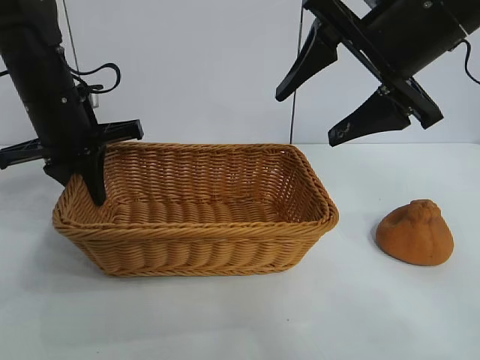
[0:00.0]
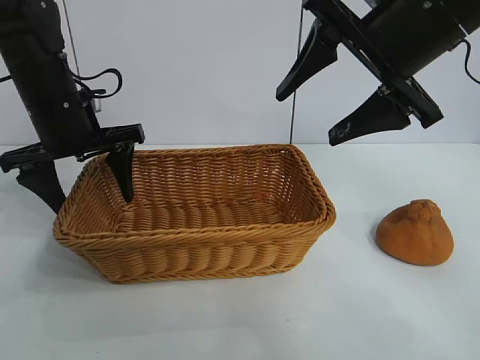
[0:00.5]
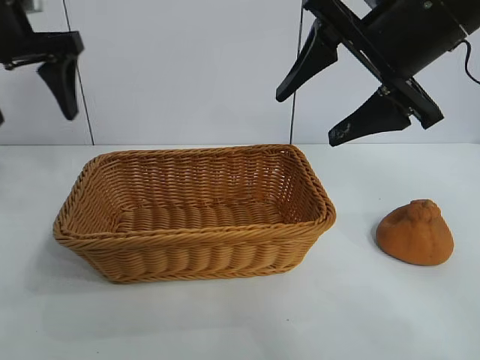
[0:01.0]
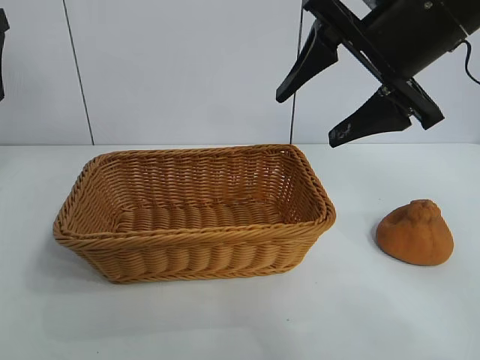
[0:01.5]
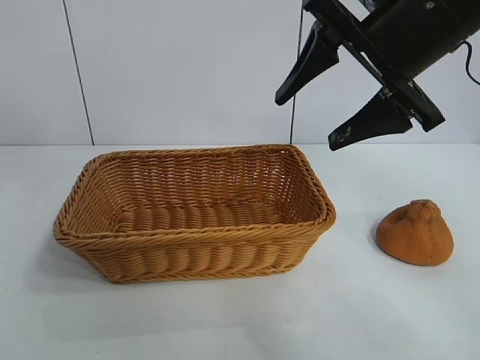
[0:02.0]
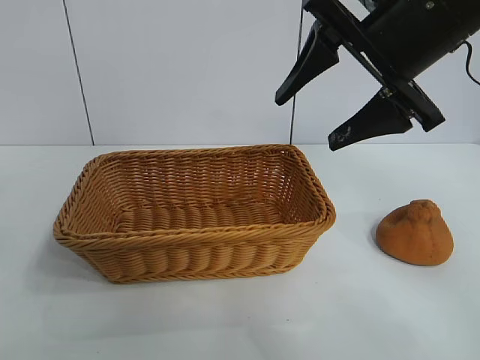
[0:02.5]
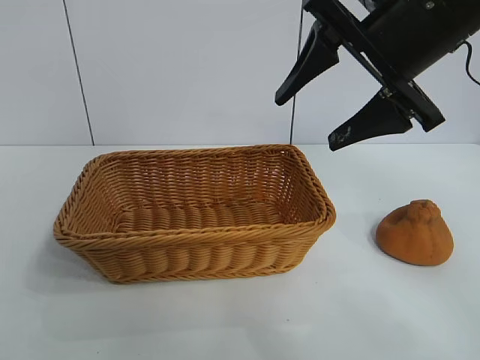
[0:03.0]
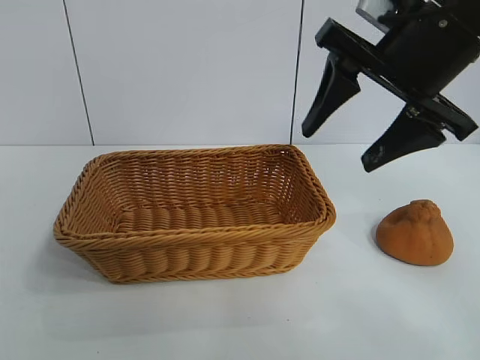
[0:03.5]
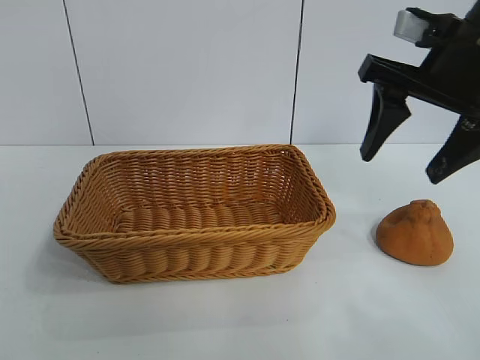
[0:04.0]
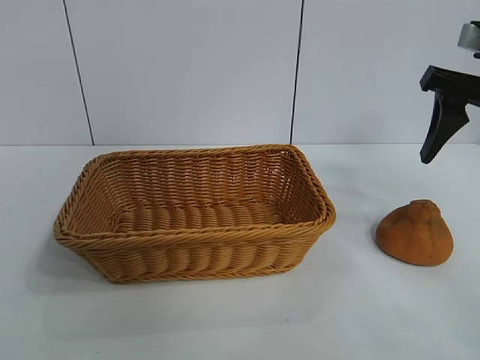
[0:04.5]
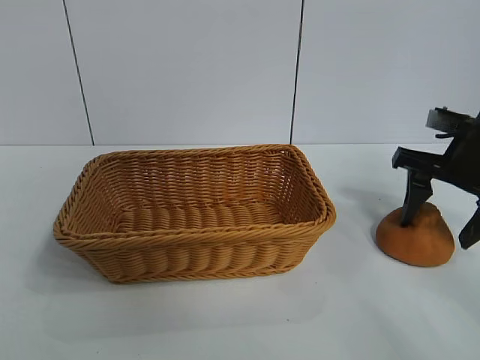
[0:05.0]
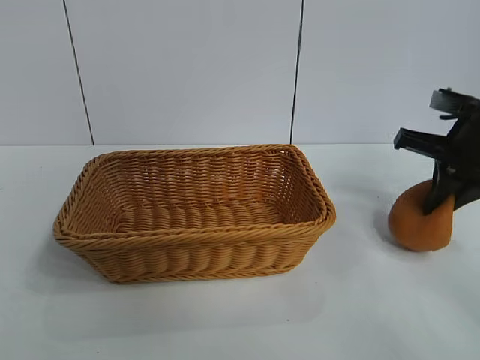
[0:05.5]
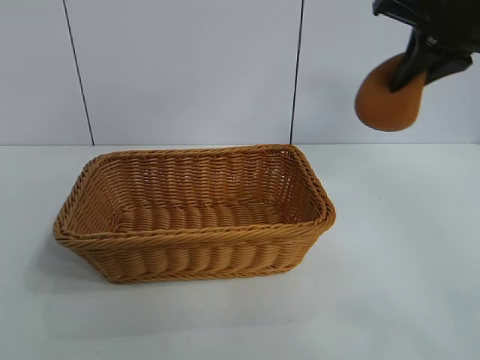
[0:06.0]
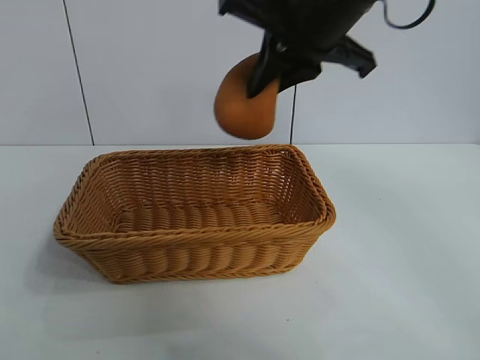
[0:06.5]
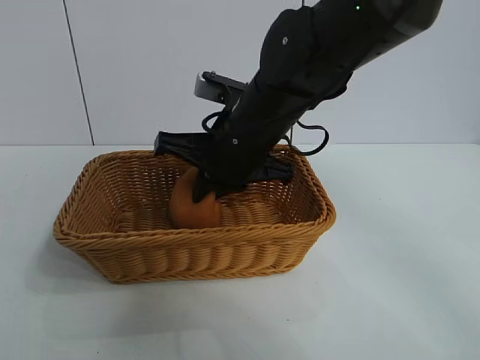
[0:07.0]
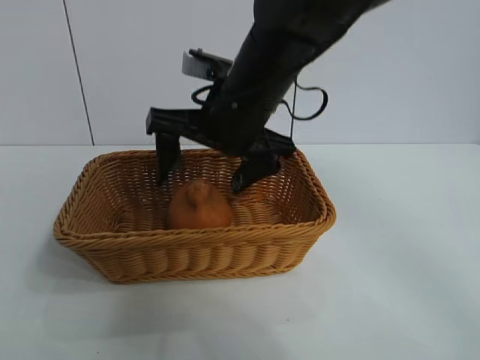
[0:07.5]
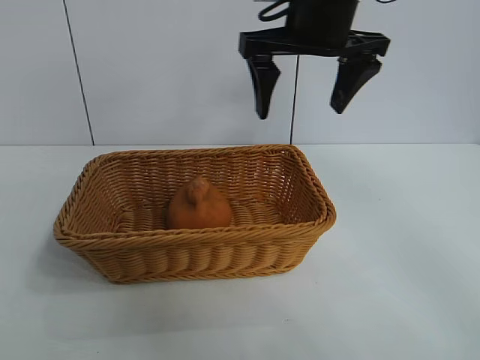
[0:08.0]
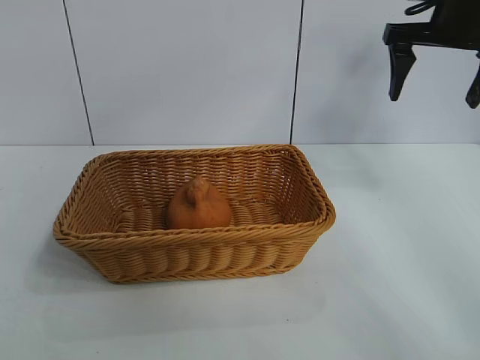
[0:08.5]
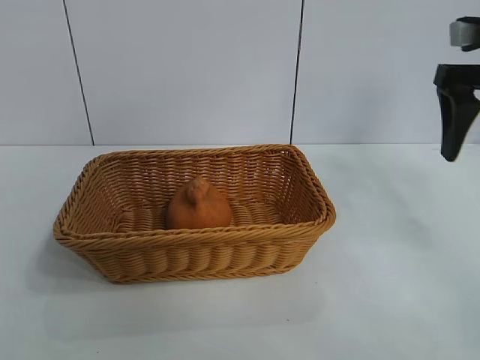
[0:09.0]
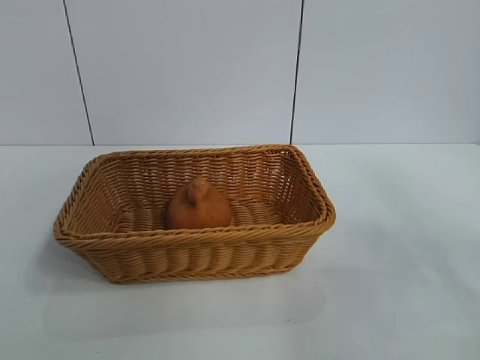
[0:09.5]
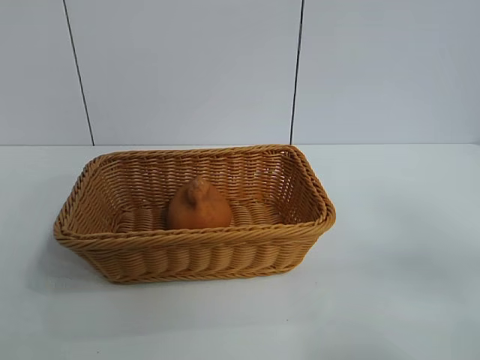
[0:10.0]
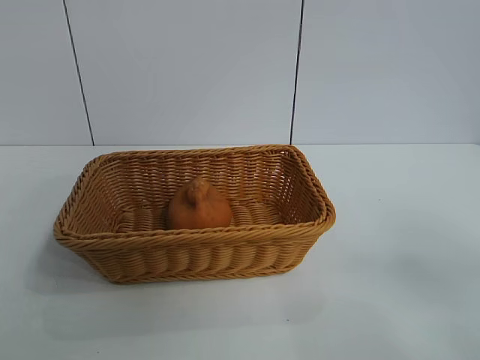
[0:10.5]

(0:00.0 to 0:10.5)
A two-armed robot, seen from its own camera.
Task of the whole recording: pick up the orange and put it into the basket.
Step, 0:01.5 - 0:05.0: Grasp the orange with right gripper.
Step, 0:05.5 - 0:07.5: Place the orange in the basket with right gripper.
